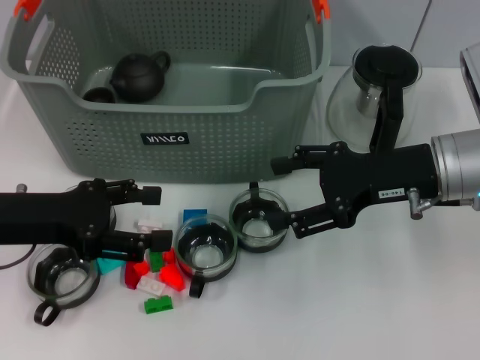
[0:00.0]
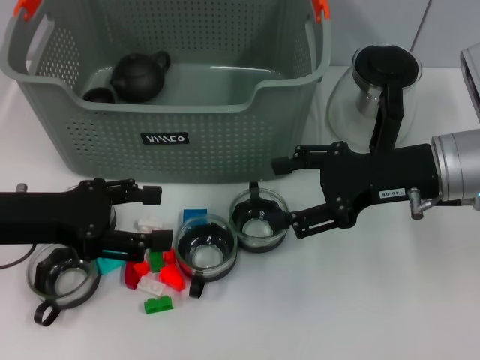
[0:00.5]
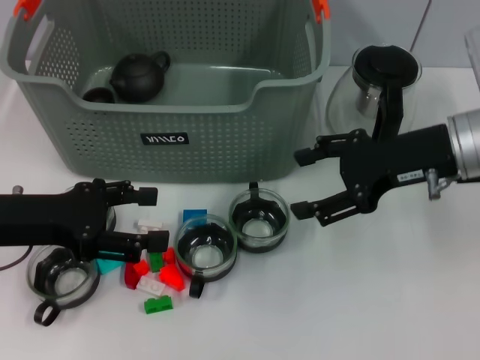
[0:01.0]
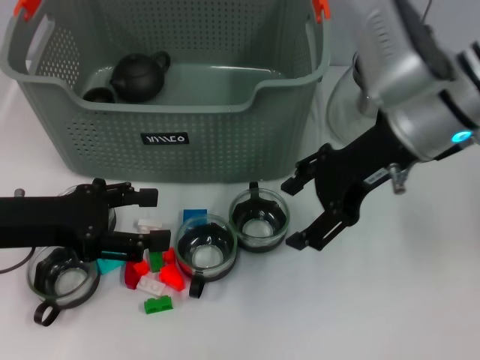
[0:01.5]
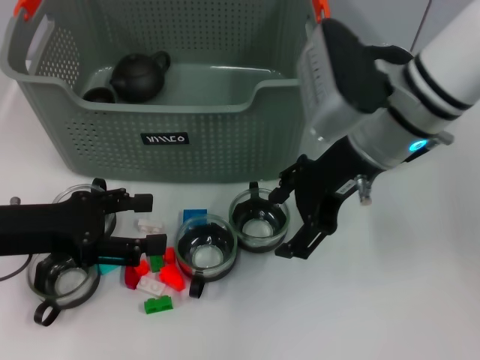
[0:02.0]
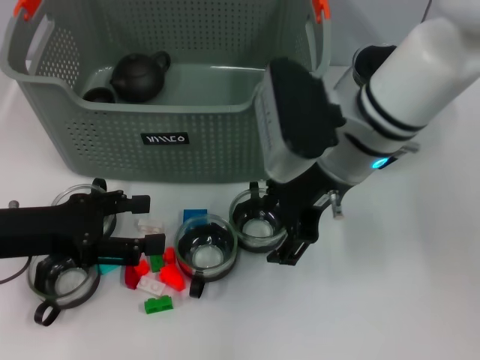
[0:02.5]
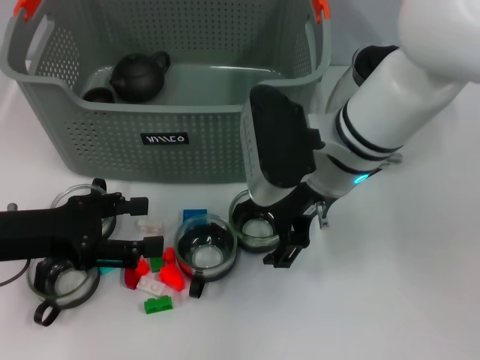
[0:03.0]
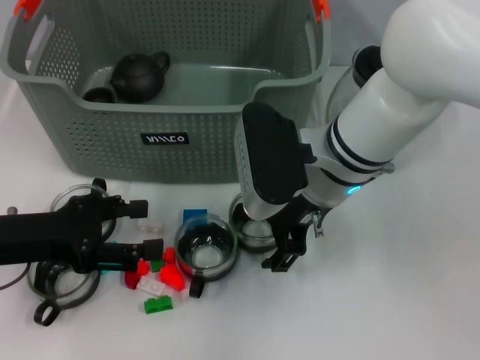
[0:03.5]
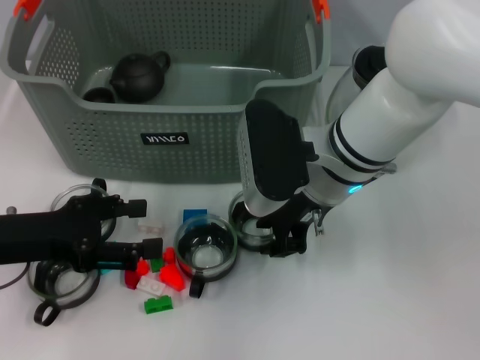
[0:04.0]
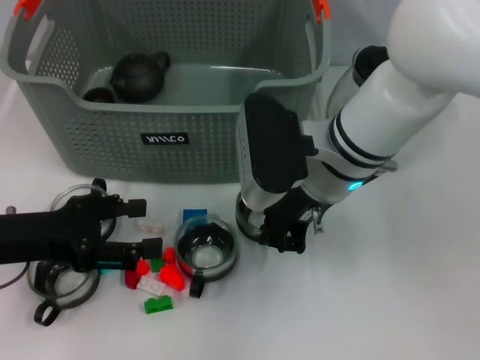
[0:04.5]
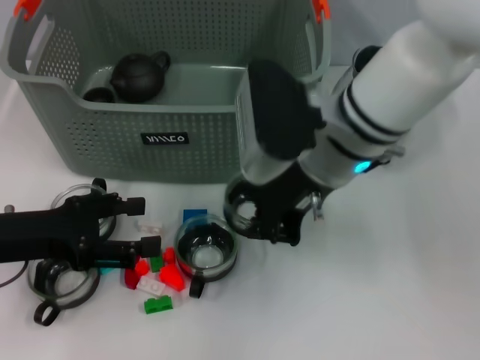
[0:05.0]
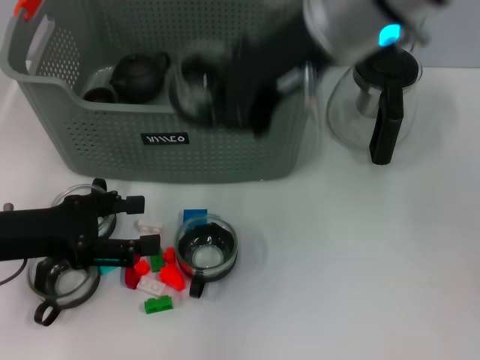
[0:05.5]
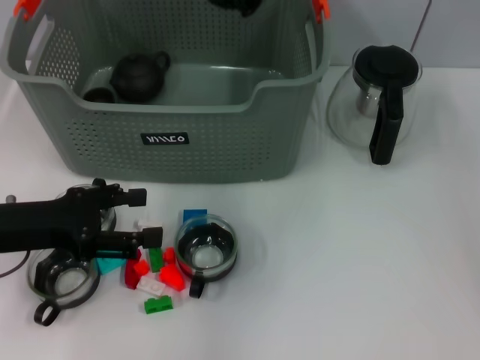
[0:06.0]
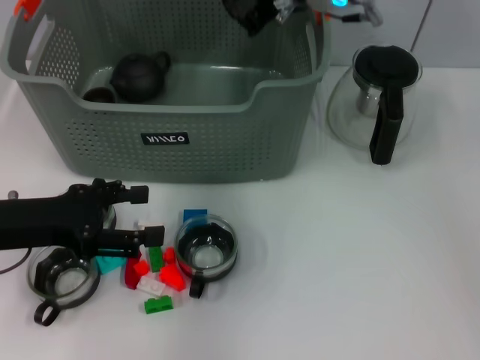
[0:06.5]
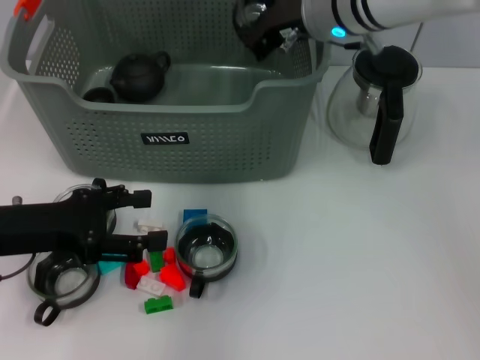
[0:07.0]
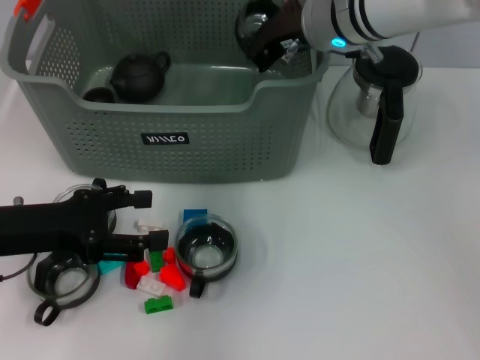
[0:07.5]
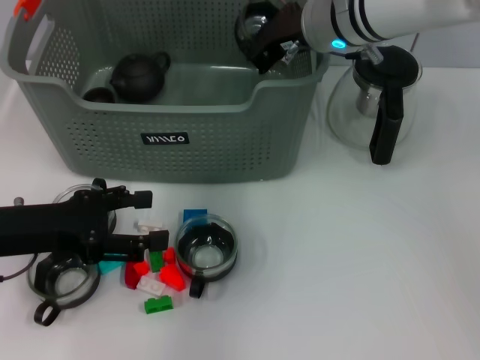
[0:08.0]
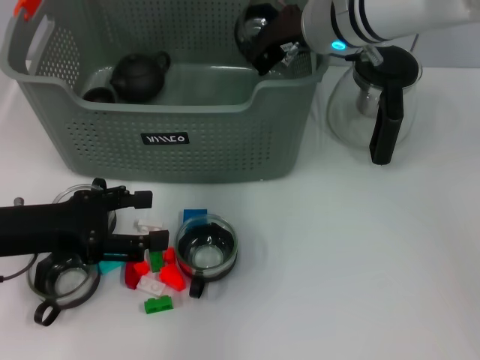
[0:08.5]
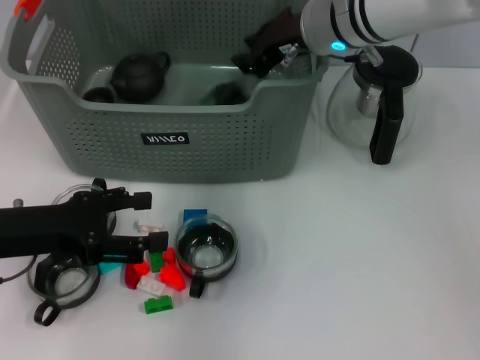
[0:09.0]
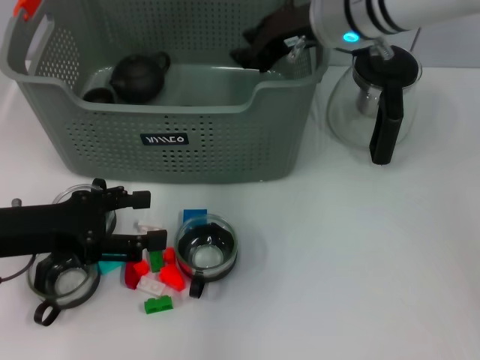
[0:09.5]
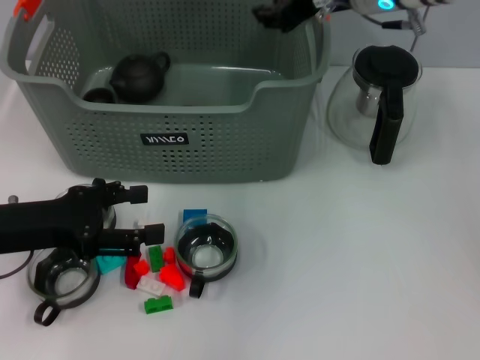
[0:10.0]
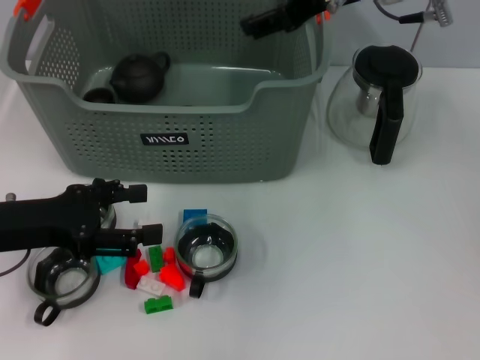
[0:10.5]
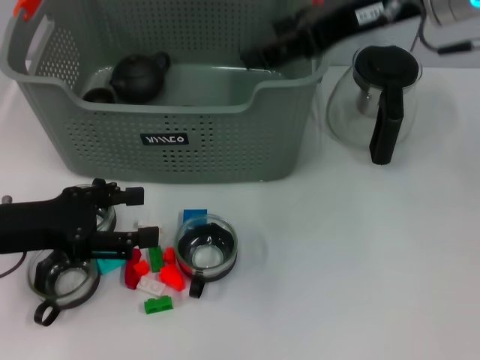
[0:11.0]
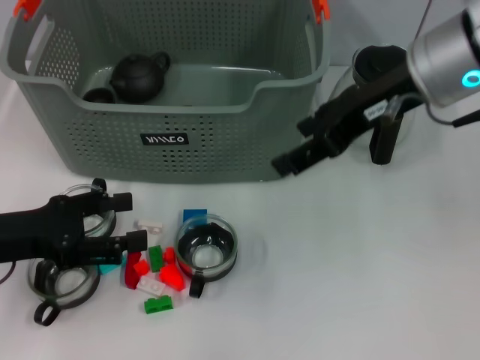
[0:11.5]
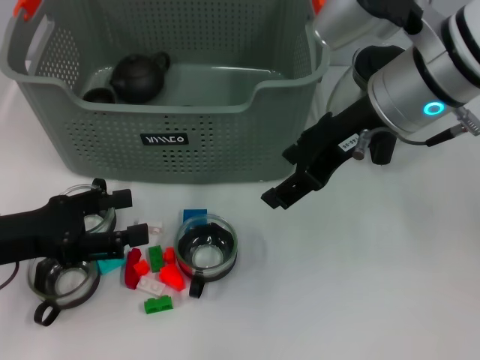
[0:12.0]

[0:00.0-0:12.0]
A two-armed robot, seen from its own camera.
Task of the whole recording: pick up the teacup on the table and place it into the storage bin, pick up the block on the table and place it into the storage bin.
Step, 0:00.0 to 0:04.5: Grasp the cup with right gripper.
Step, 0:05.0 to 0:09.0: Place the cup in the storage box with right gripper.
0:00.0 to 0:02.0: The right gripper is displaced to the left by some 10 cm.
0:02.0 to 0:04.0: The right gripper is displaced downward by approximately 5 cm, and closes.
0:04.0 to 0:06.0: The right gripper goes some 15 cm upward and forward, and closes.
0:06.0 to 0:08.0: The right gripper heads downward, covering about 10 cm.
0:08.0 to 0:10.0: The right gripper moves about 5 cm, and opens.
0:10.0 to 0:12.0: The right gripper is displaced backward by approximately 10 cm, and opens its fingers.

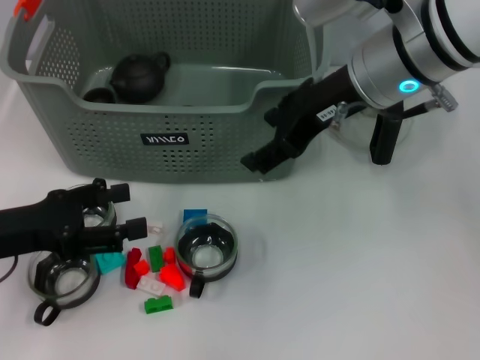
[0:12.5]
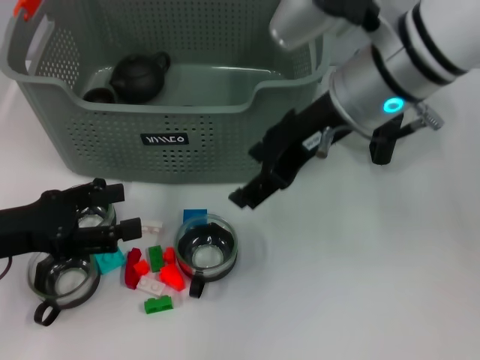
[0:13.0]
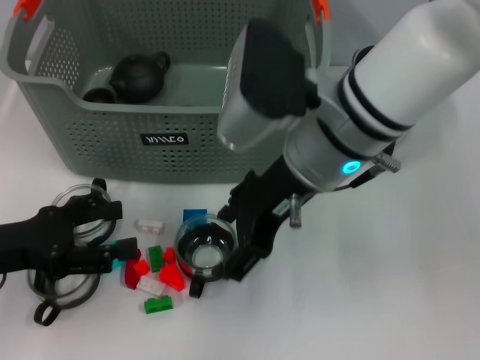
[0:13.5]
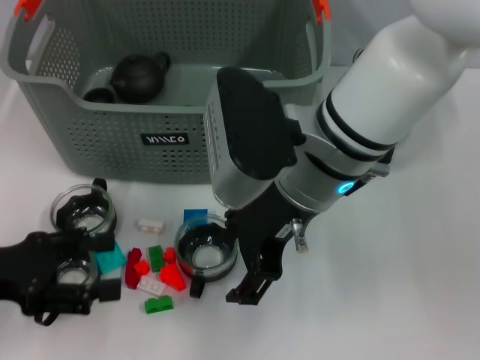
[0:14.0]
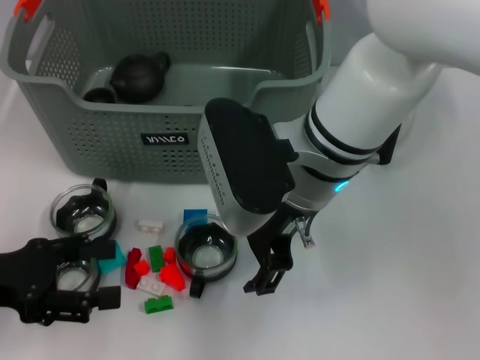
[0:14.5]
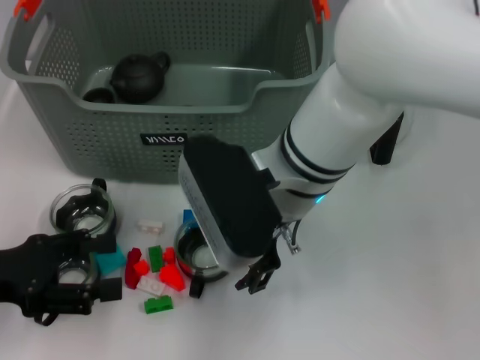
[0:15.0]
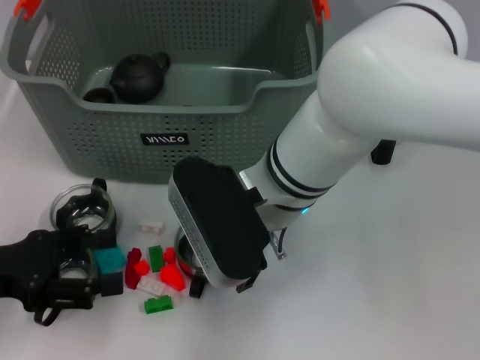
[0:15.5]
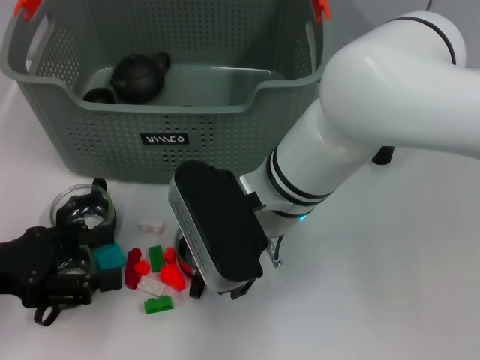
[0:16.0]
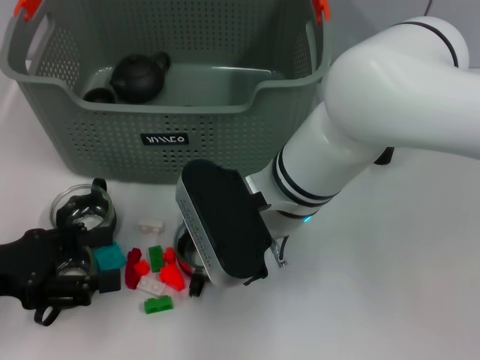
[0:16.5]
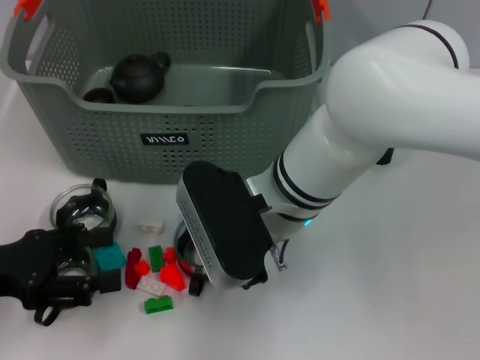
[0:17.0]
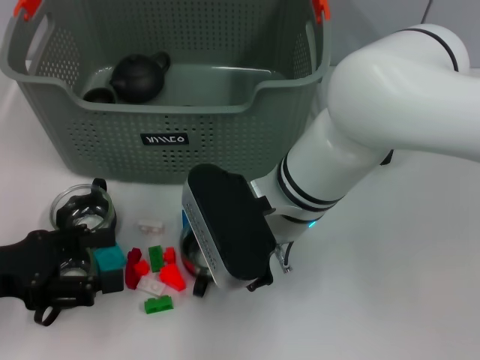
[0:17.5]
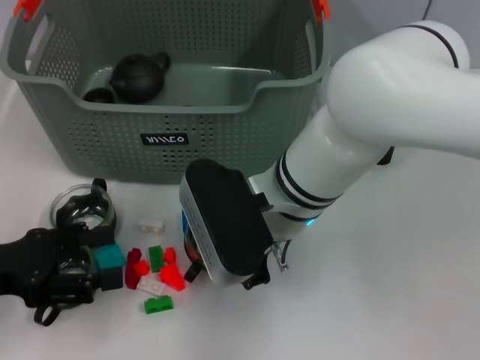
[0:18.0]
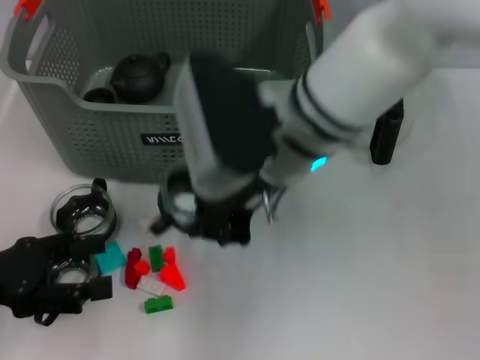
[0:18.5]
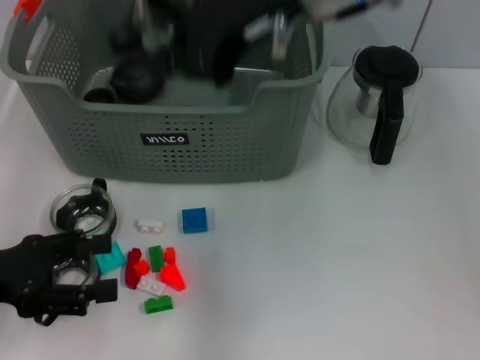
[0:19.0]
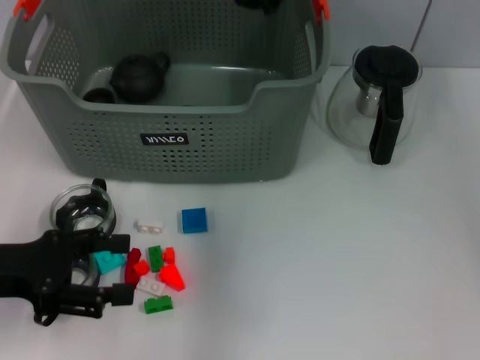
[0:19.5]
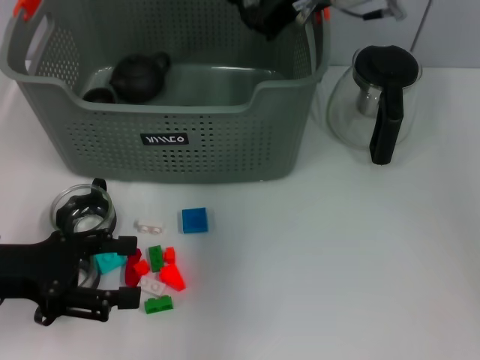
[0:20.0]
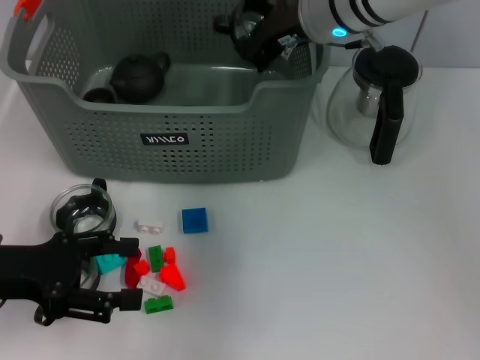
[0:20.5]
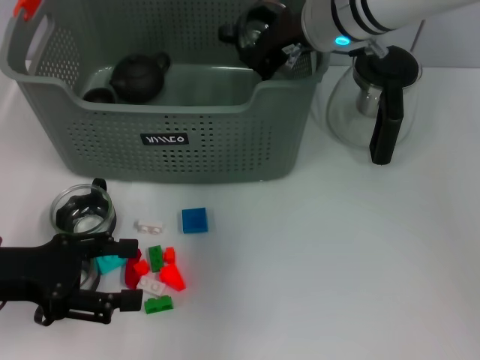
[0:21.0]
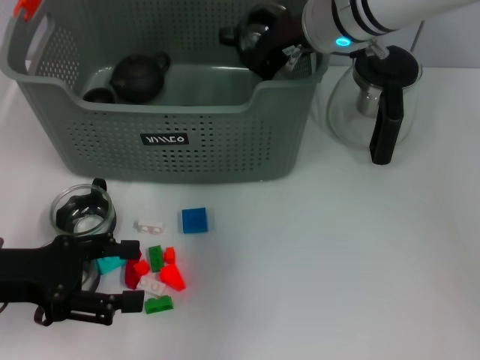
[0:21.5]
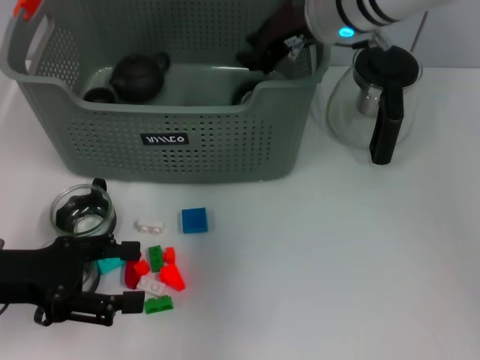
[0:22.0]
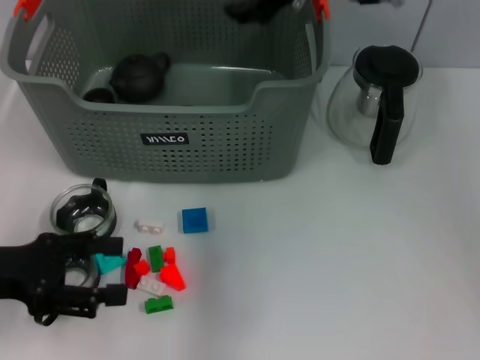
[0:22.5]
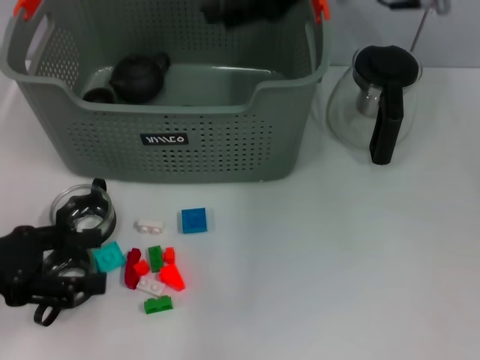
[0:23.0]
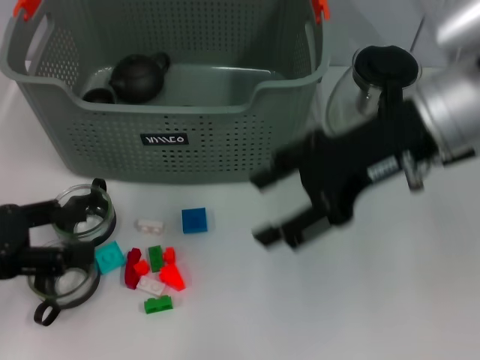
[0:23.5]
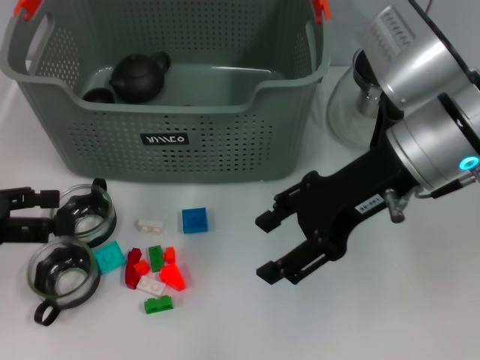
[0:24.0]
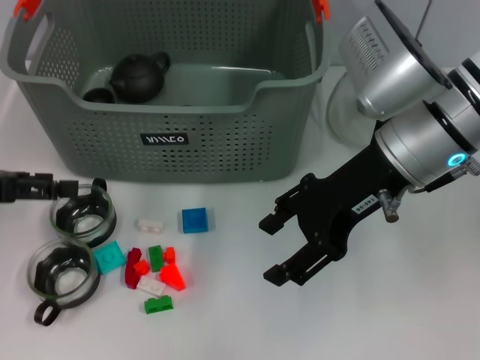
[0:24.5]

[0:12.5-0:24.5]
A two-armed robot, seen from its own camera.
Task of the whole recording: pick up the teacup on the table and place it into the storage bin, pick up the block on the table and place it into the storage bin.
Step, 0:12.5 to 0:18.0: Grasp the cup with right gripper.
Step, 0:18.5 to 0:22.0: Place the cup in the storage box with right gripper.
0:12.5 to 0:14.5: The right gripper travels to the left and downward by approximately 10 cm.
0:16.5 to 0:18.5: The right gripper is displaced upward by about 5 cm, and closes its fingers.
0:18.5 to 0:20.5: The right gripper travels forward by about 15 cm.
0:20.5 to 0:22.5: The grippers make only small movements.
0:22.5 to 0:24.5: The left gripper travels forward by some 5 cm. Meanwhile the right gripper goes approximately 15 cm backward and downward, and opens up.

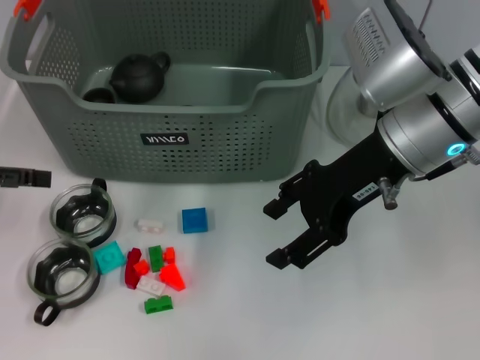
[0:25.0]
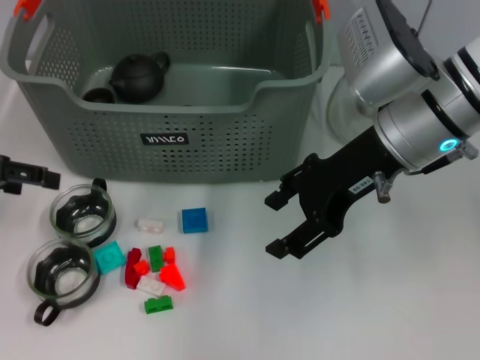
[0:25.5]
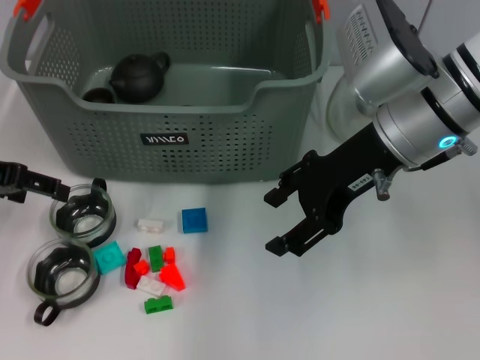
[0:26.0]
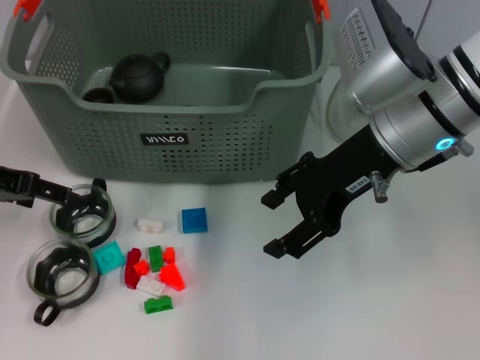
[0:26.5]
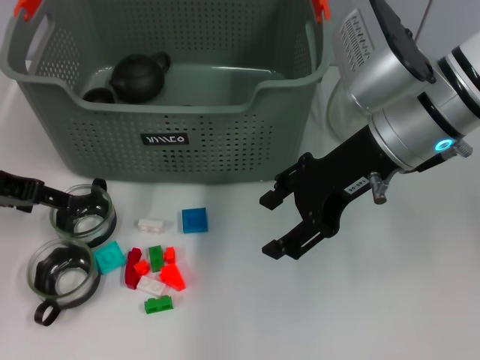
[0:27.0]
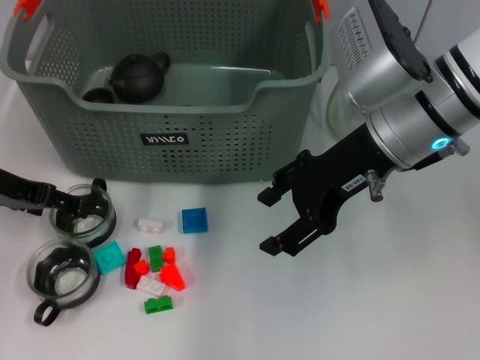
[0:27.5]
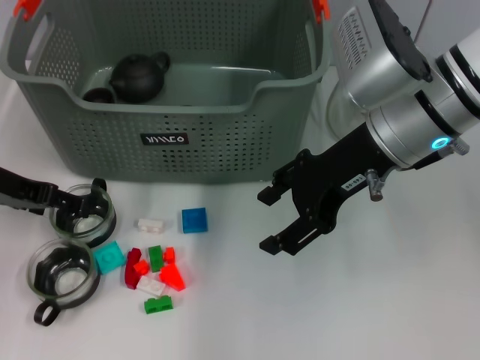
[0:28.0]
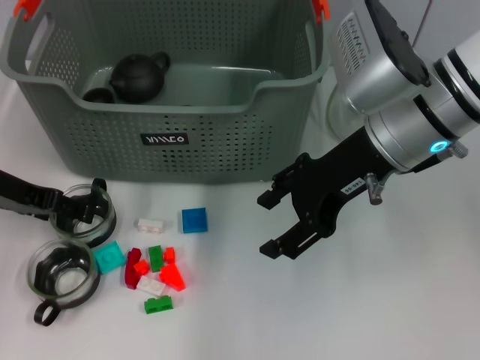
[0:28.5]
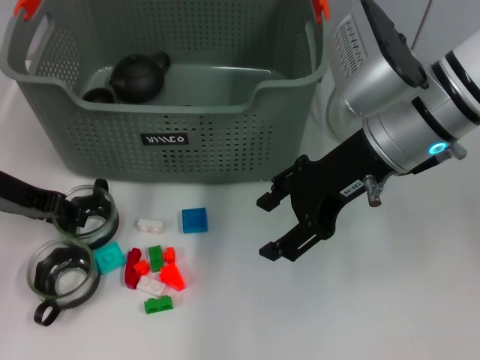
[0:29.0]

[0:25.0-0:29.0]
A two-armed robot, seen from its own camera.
Task of the whole recording: pick up the teacup on the table and place it into the storage bin, pick up the block on the table and place it into the storage bin.
0:25.0 to 0:27.0: The left gripper travels to the right by roughly 5 cm.
0:27.0 to 0:29.0: The grippers stay close to where they were, moving slightly.
